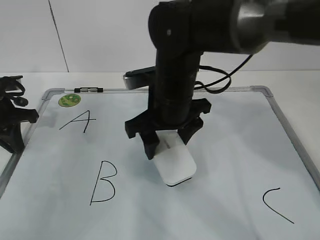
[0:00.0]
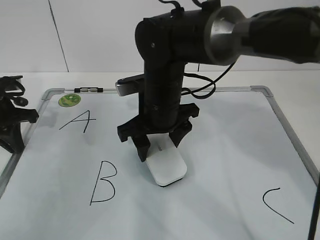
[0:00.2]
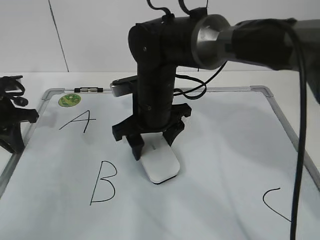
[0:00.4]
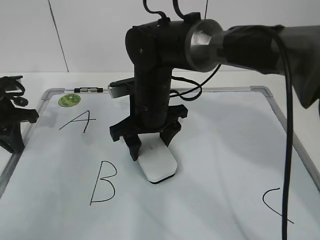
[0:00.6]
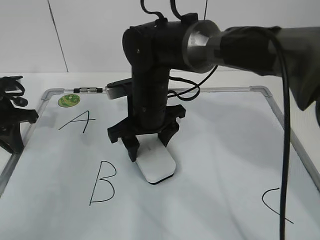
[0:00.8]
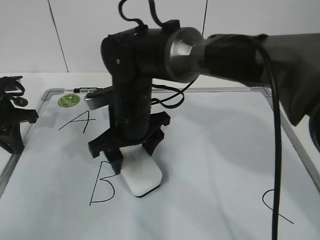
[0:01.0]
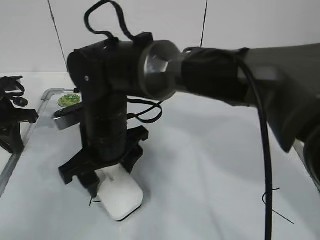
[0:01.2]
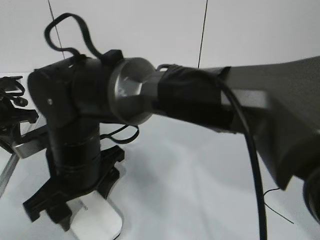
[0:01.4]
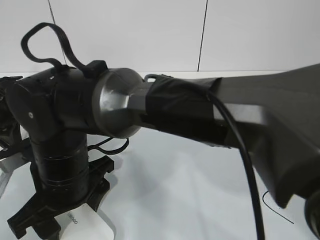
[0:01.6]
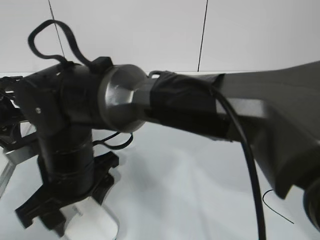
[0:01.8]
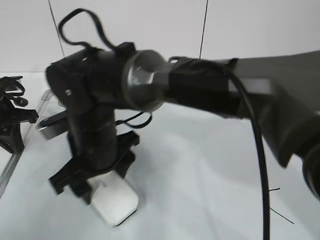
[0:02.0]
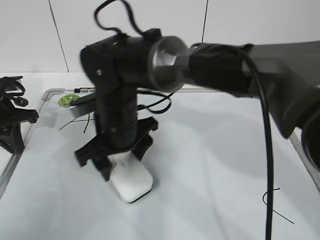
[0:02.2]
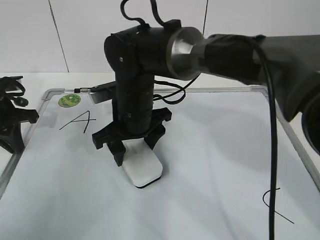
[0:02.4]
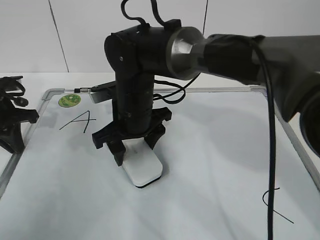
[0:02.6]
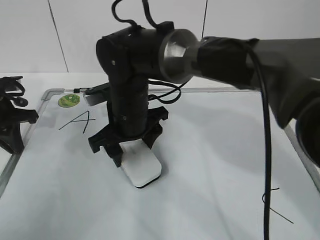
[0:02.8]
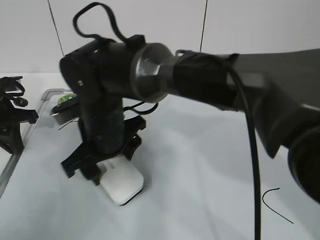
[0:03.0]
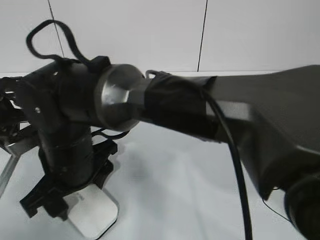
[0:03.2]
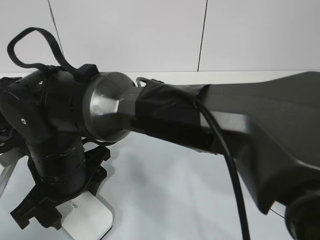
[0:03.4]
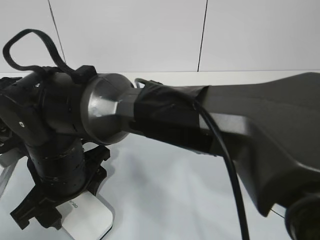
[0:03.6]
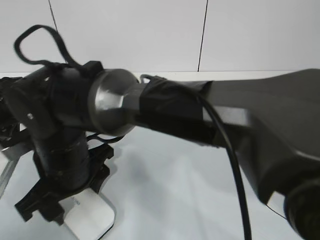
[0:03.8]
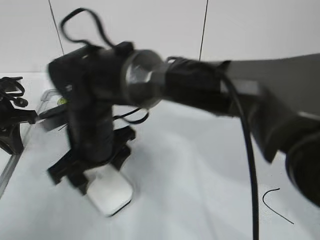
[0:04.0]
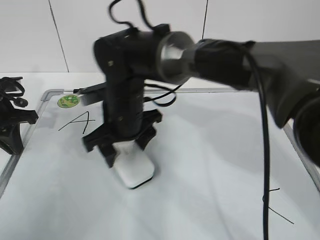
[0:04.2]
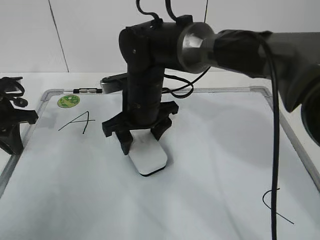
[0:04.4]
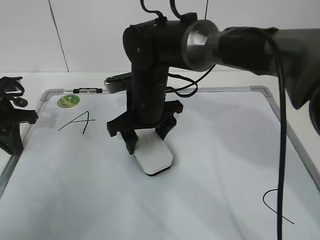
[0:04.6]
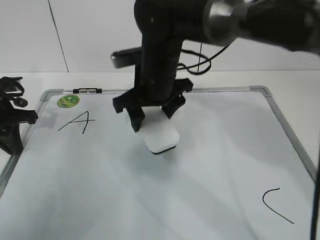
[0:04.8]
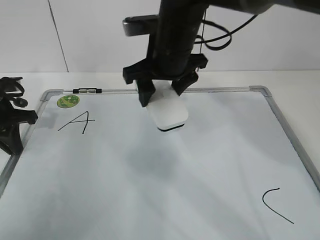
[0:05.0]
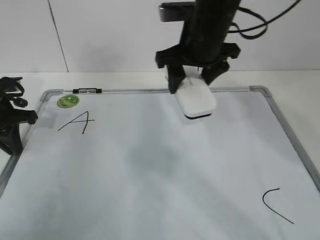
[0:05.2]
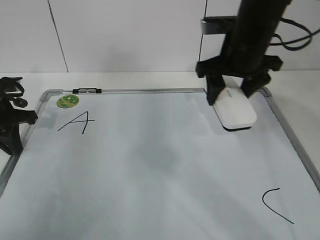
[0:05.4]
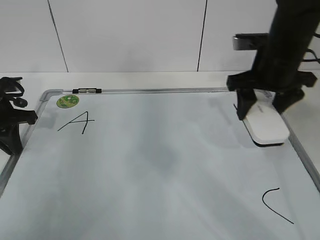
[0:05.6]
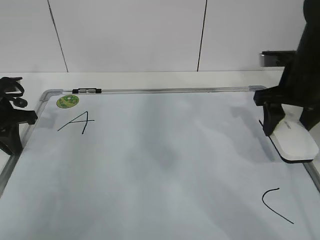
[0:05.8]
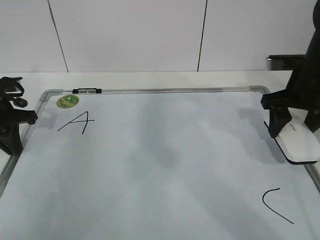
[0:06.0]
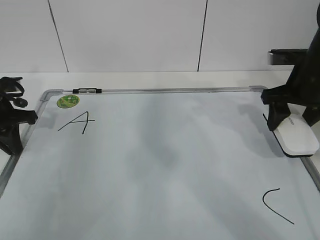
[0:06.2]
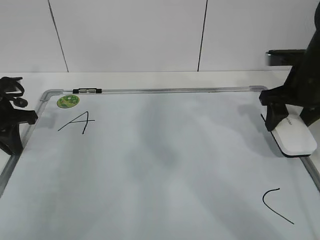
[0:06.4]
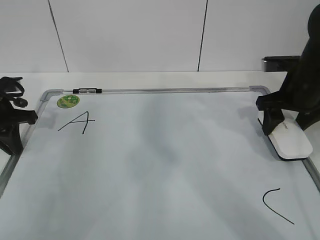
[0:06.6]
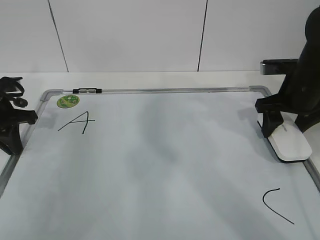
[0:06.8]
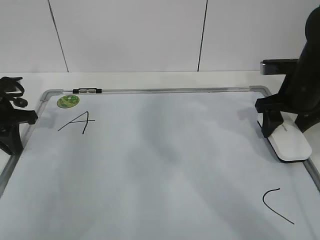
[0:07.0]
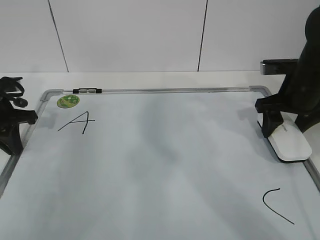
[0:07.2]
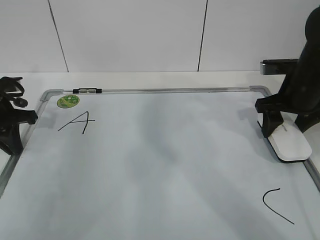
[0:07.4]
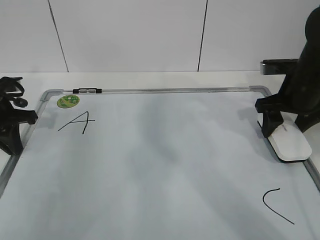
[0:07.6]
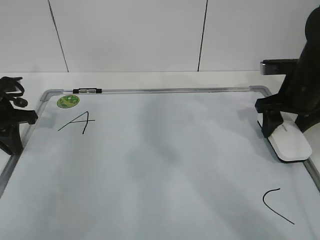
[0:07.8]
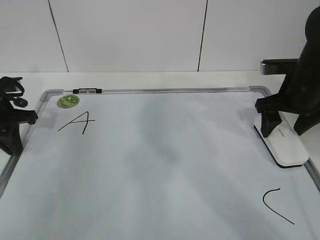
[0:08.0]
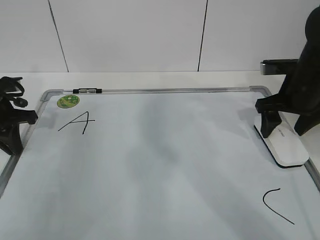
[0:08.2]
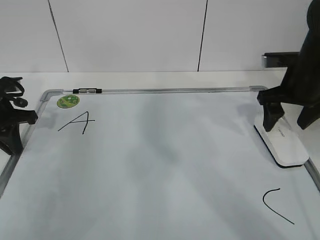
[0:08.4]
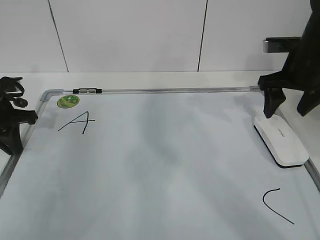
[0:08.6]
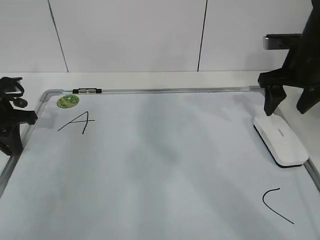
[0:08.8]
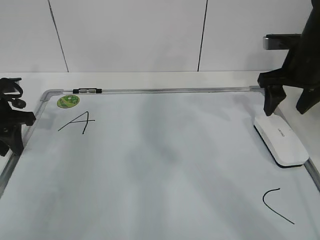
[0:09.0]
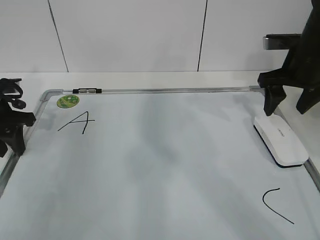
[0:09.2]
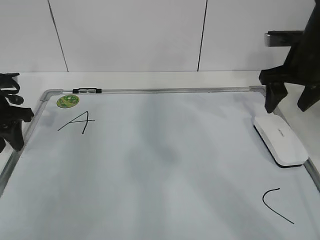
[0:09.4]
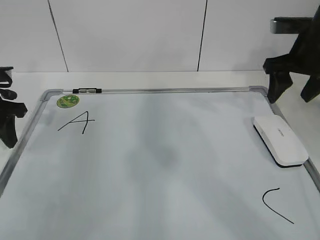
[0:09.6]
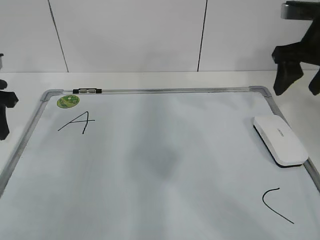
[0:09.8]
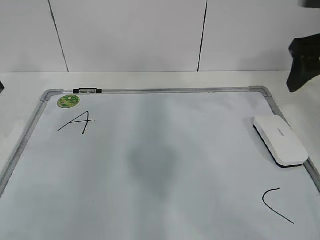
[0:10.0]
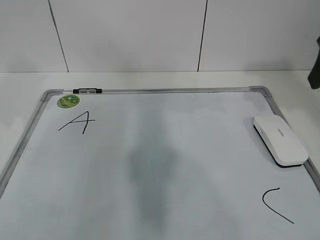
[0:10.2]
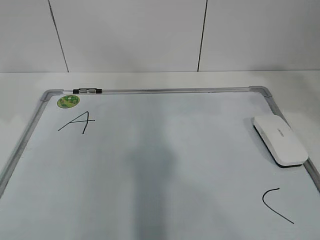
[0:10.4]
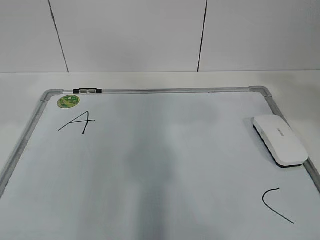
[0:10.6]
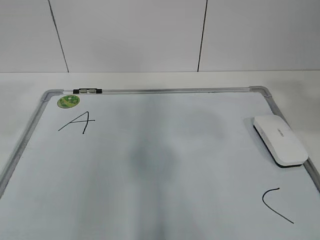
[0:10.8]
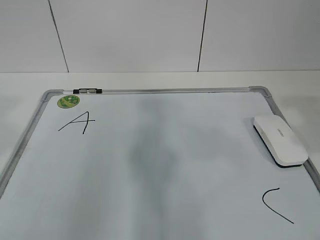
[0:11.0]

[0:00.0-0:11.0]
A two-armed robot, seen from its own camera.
Task of the whole recording: pick up the eraser on the blackboard and erase the letter "B".
Step, 0:01.8 to 0:04.4: Put down the eraser with your right hand.
0:00.0 to 0:01.6: The right gripper travels to the left and backward by about 15 cm.
0:01.6 to 0:03.2: The right gripper reaches about 10 cm forward, then returns.
0:03.2 to 0:04.8: The right gripper travels to the right and forward by roughly 15 cm.
0:04.8 to 0:06.2: The right gripper is displaced to the right by some 25 cm.
0:06.2 to 0:07.8: The grippers move only a little.
0:07.8 to 0:09.4: The left gripper opens; the right gripper opens up.
0:09.4 to 0:11.0: Both grippers move backward and upward, some 30 cm.

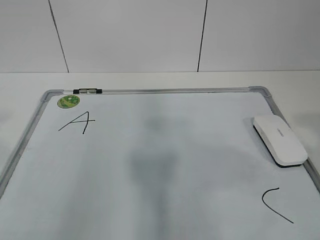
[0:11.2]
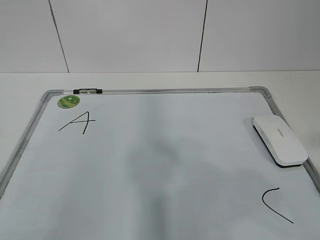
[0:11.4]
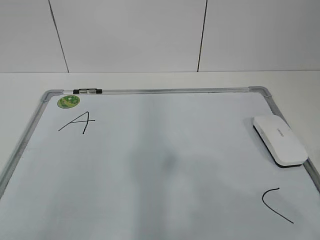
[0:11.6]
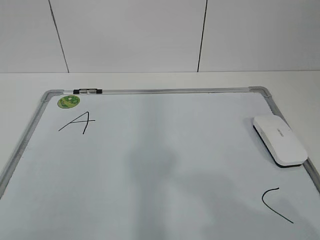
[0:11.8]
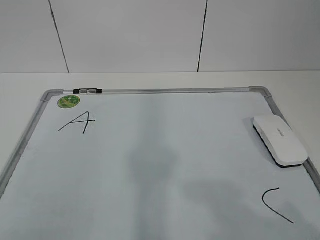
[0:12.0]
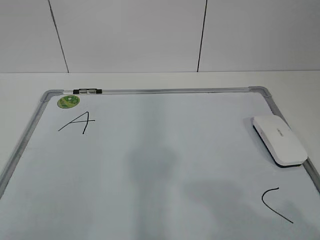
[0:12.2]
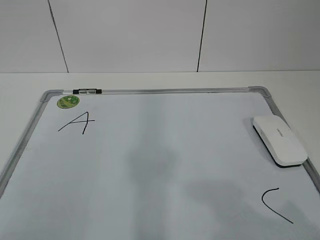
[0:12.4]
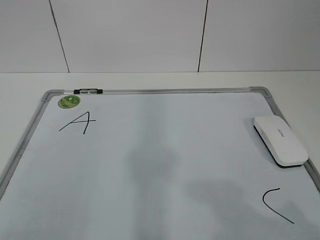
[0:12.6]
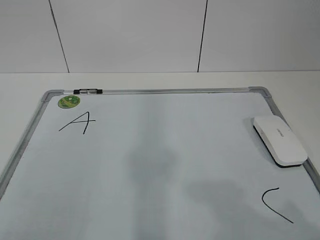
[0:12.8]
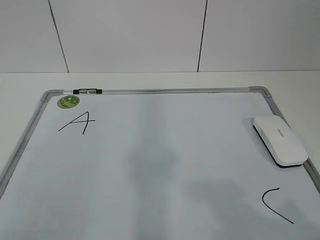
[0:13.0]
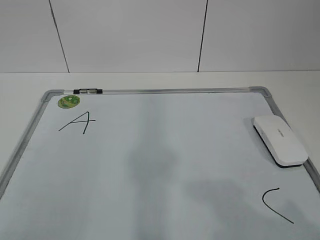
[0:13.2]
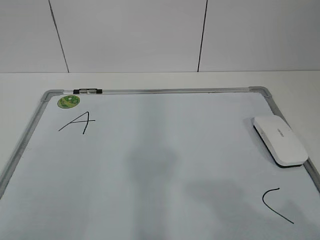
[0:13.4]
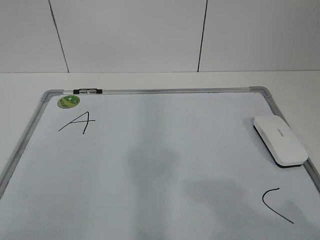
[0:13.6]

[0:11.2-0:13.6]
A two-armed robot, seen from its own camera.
Task of the whole recording: pick up the eraser on the blackboard and erase the letter "B".
0:11.2 to 0:12.4: The right gripper moves downward and backward, roughly 10 cm.
0:12.4 to 0:13.6: Neither gripper changes place.
